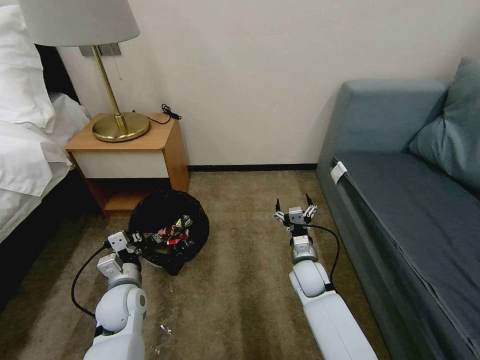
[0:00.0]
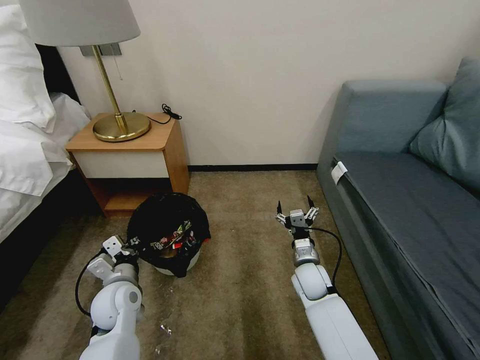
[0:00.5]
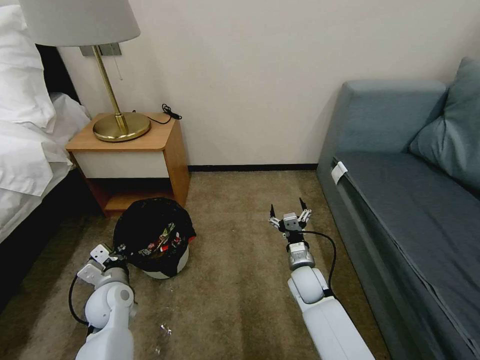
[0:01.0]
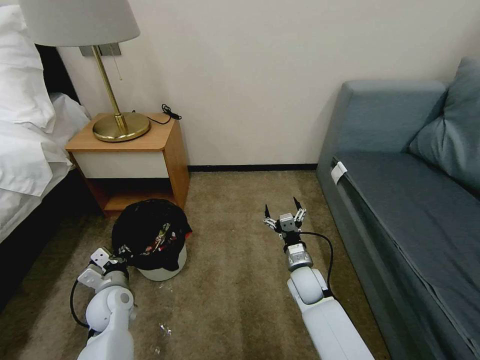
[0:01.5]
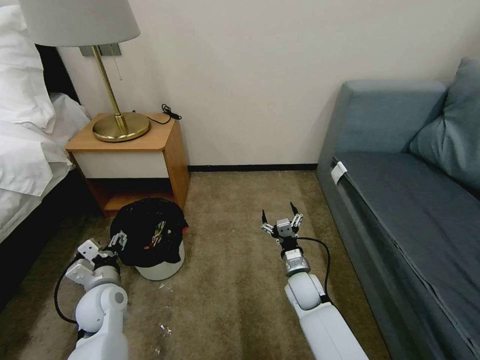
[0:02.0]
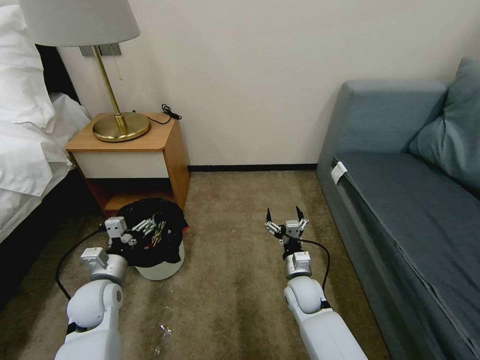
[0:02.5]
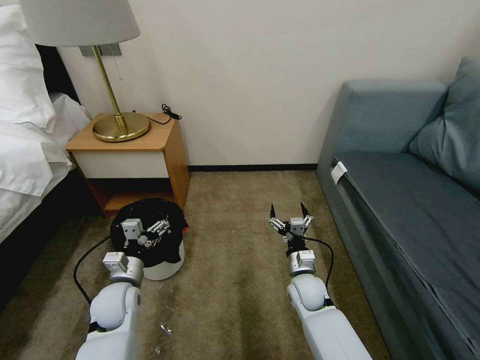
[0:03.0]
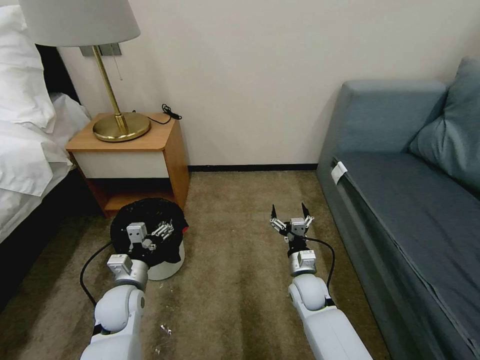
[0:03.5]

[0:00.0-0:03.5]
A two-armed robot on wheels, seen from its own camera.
Task of the whole recording: Pick up the trash bin, then pick up the garbage on the floor and place it into the trash bin.
0:00.0 to 0:02.0: The left gripper opens up.

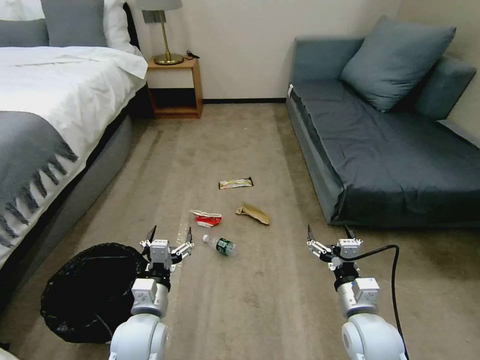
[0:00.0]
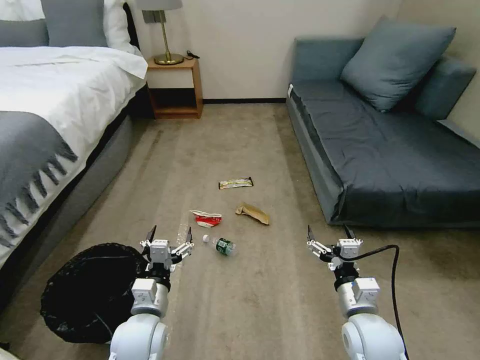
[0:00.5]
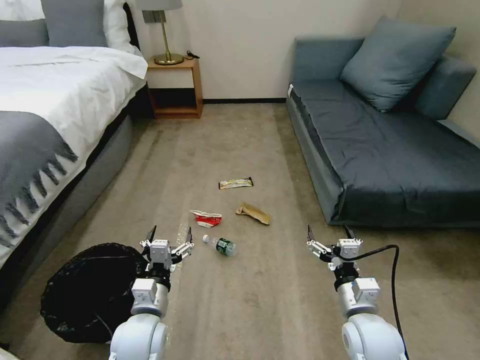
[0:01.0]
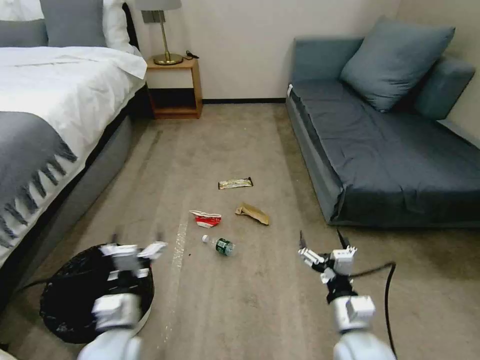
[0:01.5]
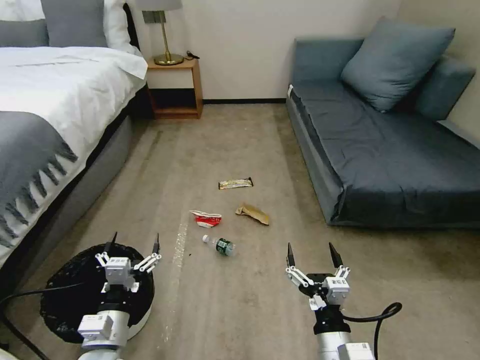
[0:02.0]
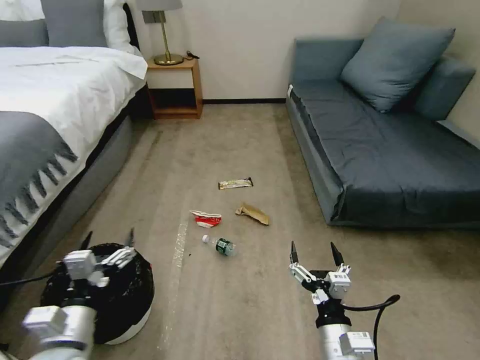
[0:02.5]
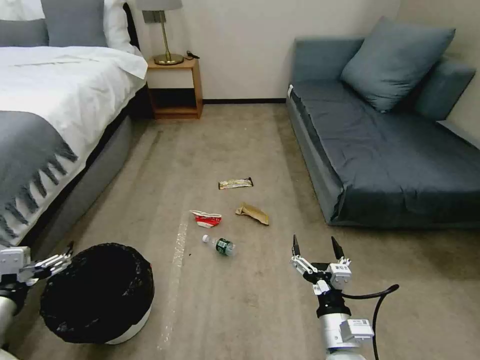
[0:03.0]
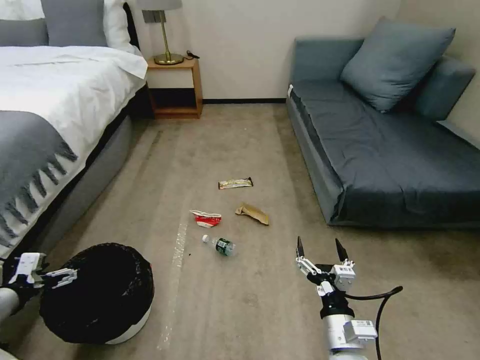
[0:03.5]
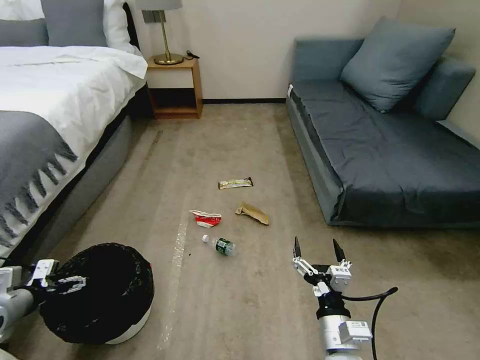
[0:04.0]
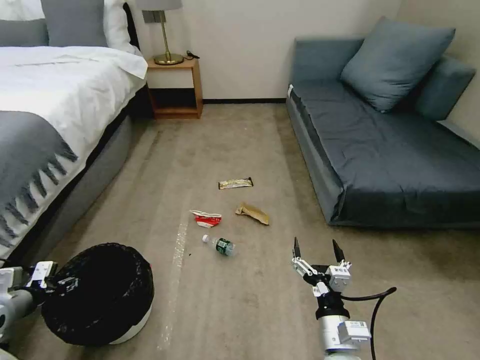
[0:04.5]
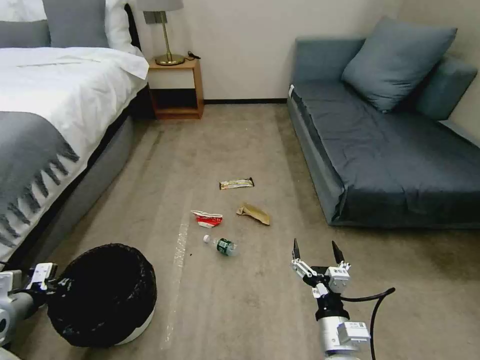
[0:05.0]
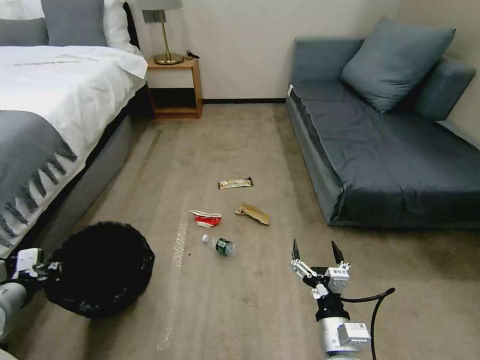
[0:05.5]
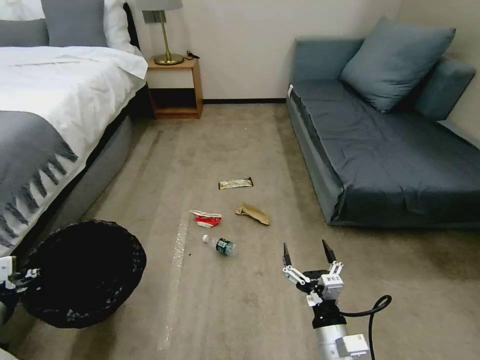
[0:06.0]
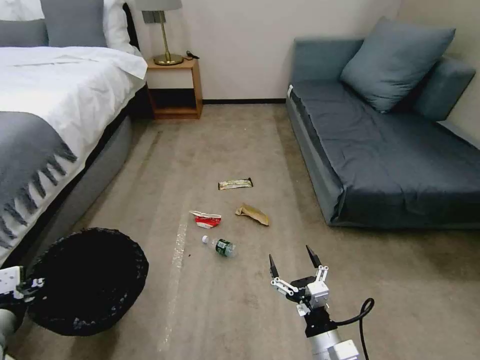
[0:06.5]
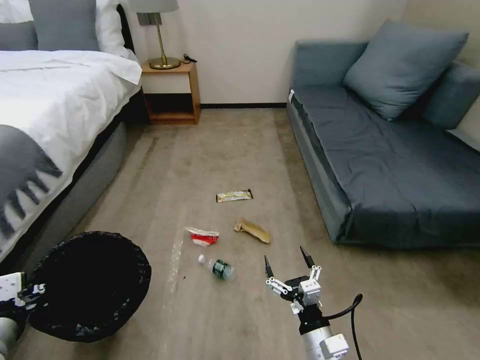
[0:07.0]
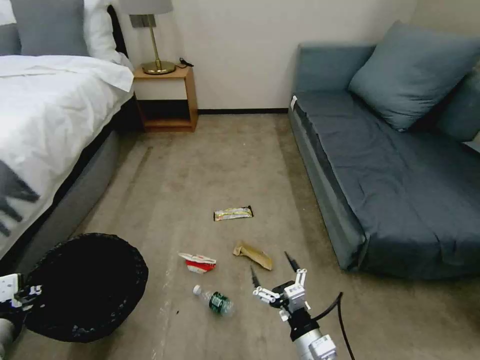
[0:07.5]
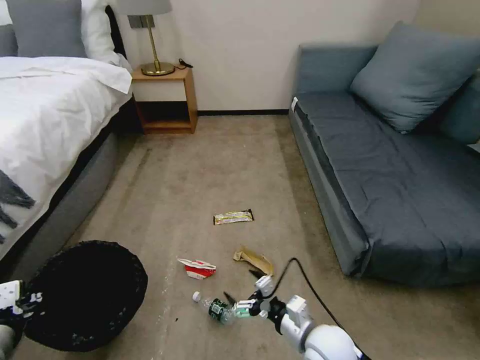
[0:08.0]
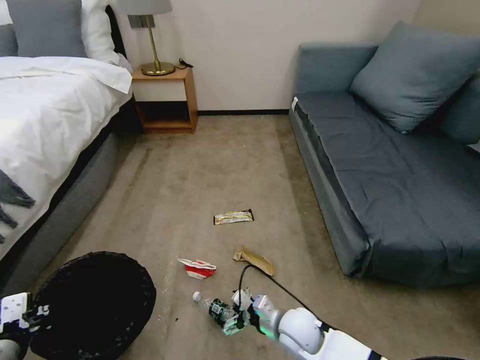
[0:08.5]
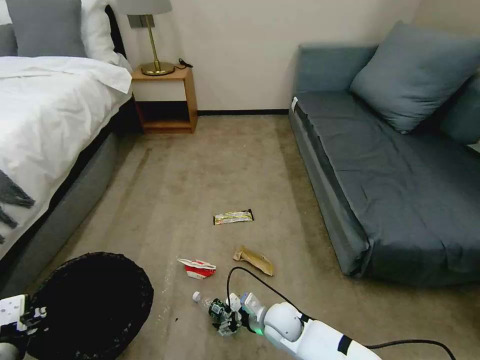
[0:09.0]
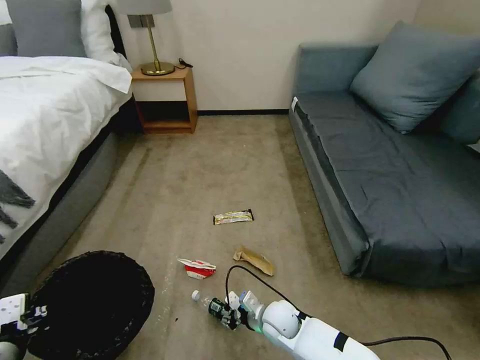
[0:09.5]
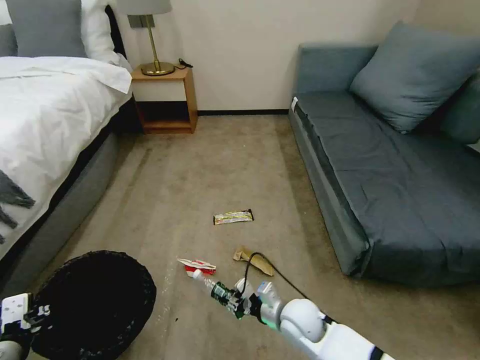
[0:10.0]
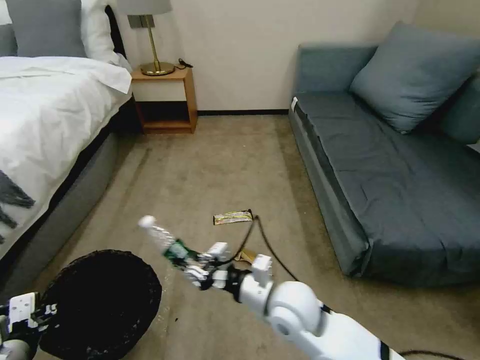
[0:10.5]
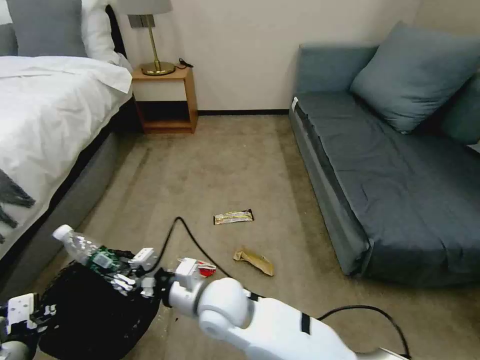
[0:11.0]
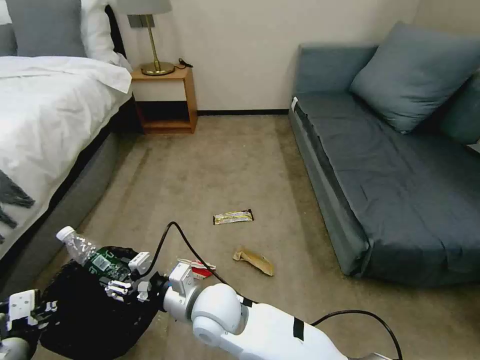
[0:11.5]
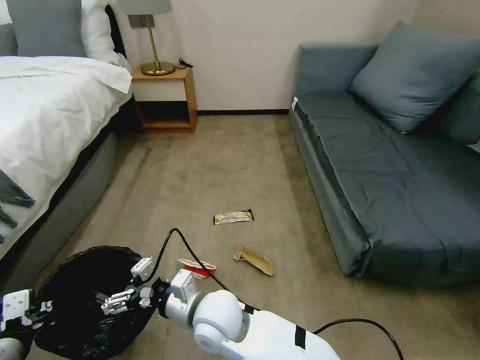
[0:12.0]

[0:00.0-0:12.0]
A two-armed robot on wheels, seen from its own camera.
Task of the whole recording: Pick up the trash bin, then pick up the garbage on the floor and place it into the trash bin.
0:02.0 to 0:04.0: The left gripper moves to the left, approximately 25 cm.
0:04.0 to 0:06.0: The left gripper heads upward, to the right and backward, covering approximately 15 cm, and closes up.
0:06.0 to 0:08.0: The right gripper heads forward, covering approximately 5 cm.
0:08.0 to 0:10.0: The right gripper moves forward and downward, approximately 10 cm, and closes its fingers.
0:10.0 to 0:12.0: The right gripper moves to the left and upward, roughly 25 cm, and opens its fingers.

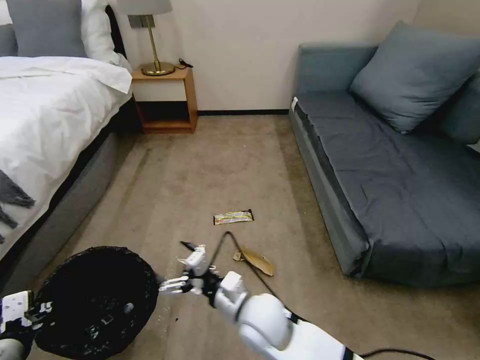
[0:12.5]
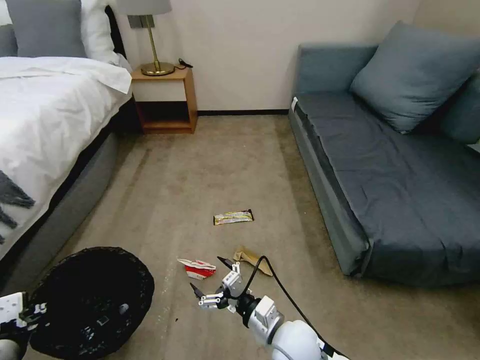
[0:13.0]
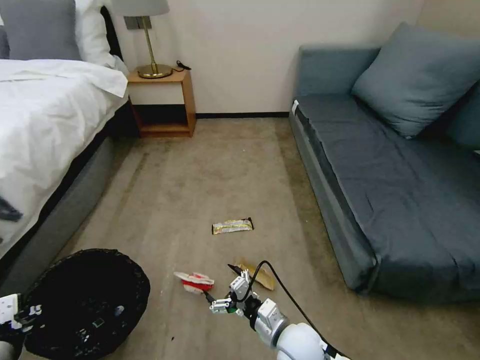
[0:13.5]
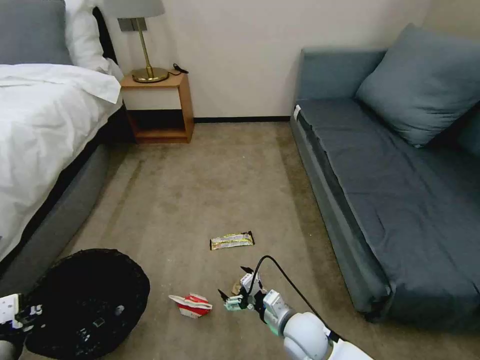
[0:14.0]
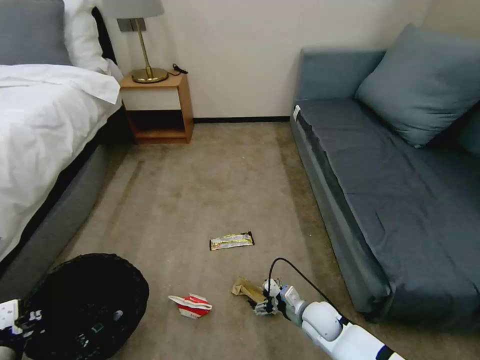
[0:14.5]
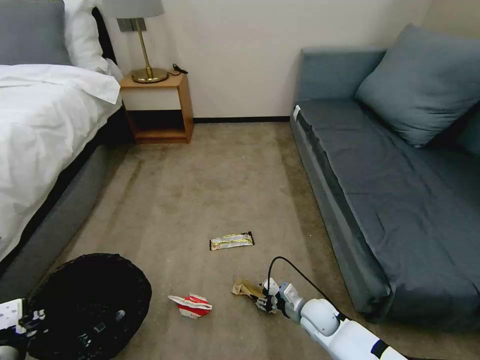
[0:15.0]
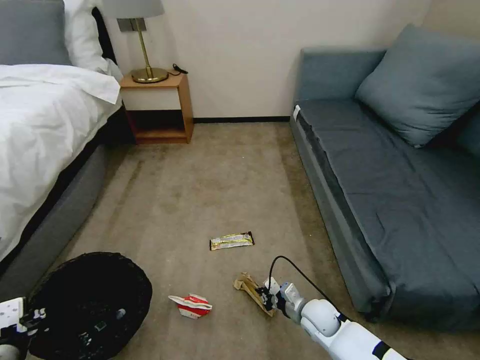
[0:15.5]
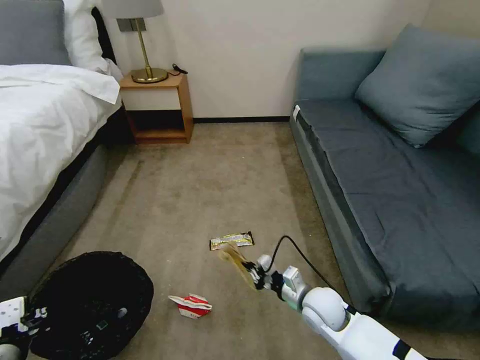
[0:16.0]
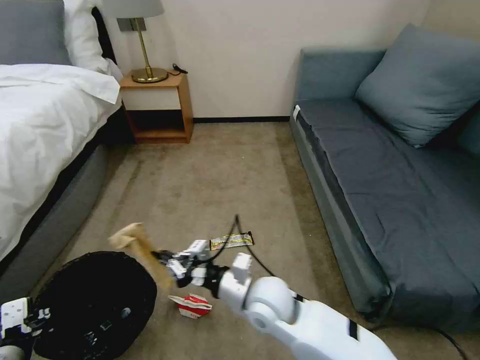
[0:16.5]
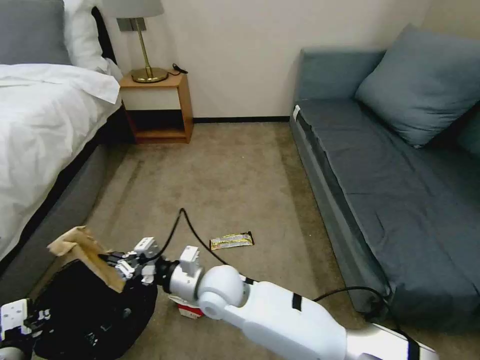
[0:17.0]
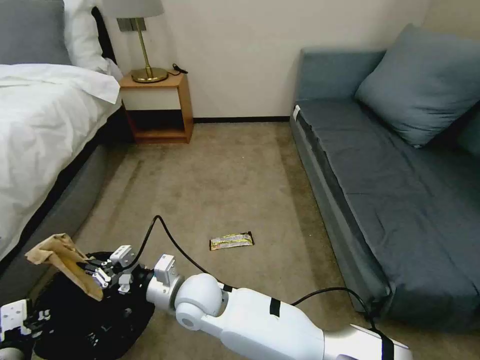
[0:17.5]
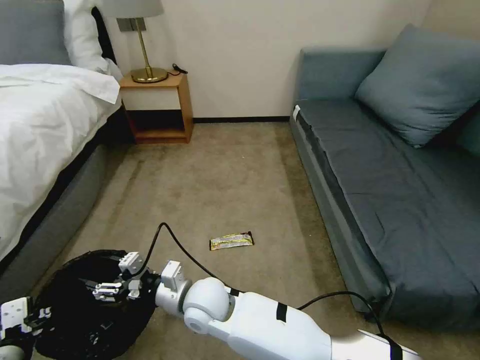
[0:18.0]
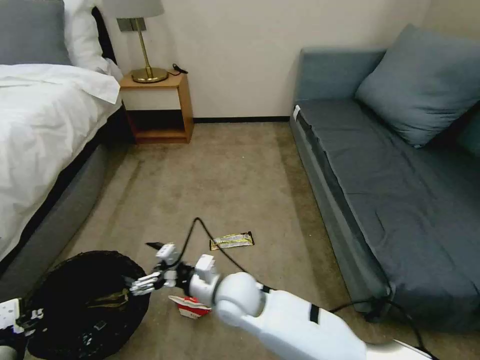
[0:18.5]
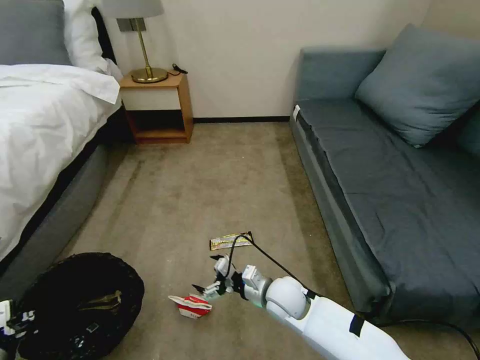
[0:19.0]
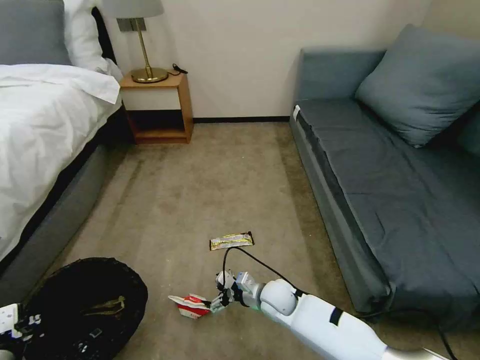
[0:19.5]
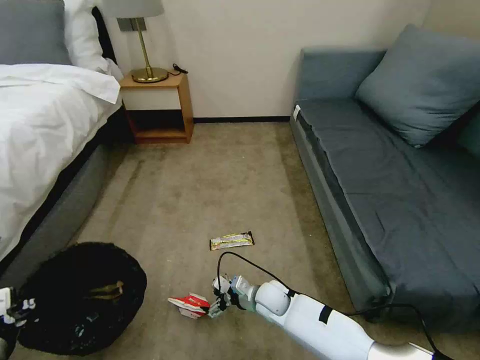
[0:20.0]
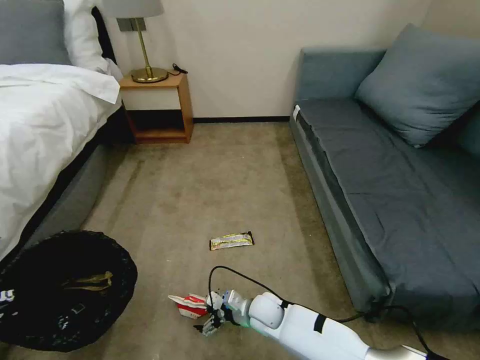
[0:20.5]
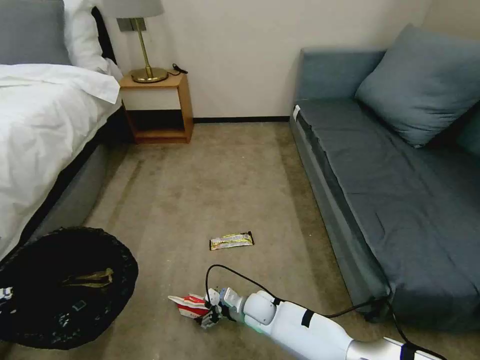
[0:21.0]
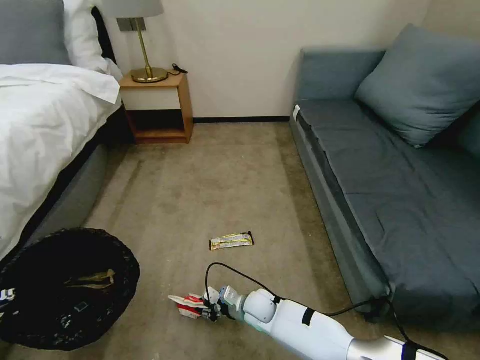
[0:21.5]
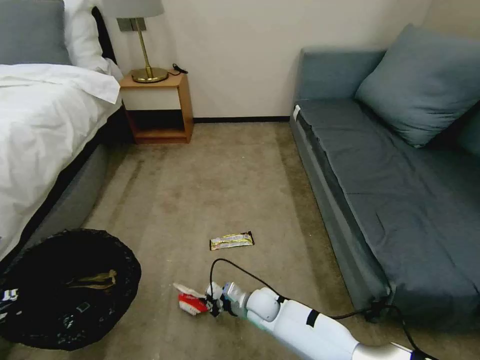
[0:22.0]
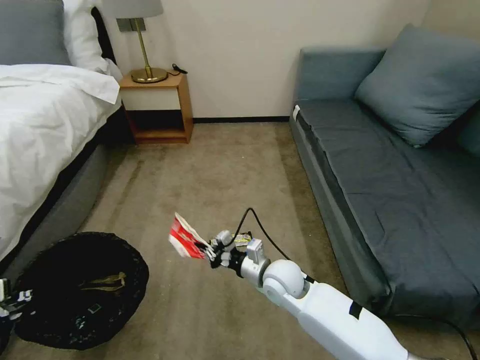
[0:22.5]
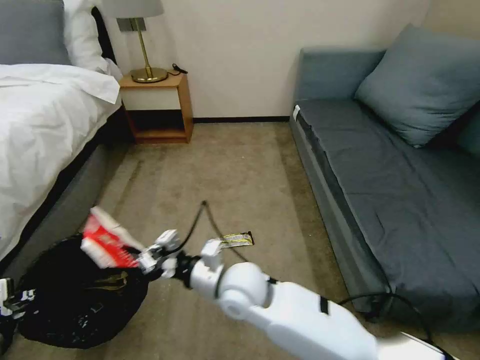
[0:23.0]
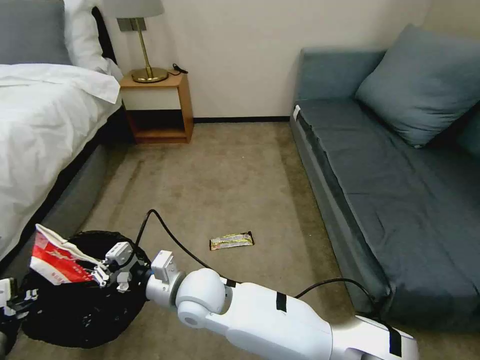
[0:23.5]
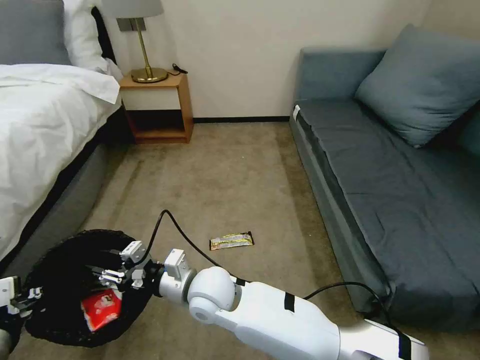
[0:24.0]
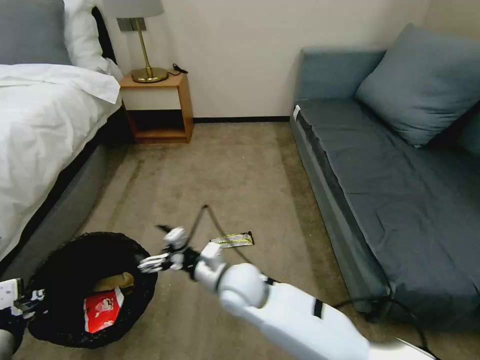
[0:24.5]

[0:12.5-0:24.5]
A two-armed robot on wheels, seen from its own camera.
Task of the whole recording: Pick up the trash bin, then pick up the garbage on the floor and place it into the trash bin.
0:12.5 to 0:14.5: The right gripper travels to the right and downward by about 25 cm.
0:14.5 to 0:16.5: The right gripper is displaced upward and to the left by some 25 cm, and closes up.
0:16.5 to 0:18.5: The right gripper shifts approximately 5 cm to the left, and opens.
0:18.5 to 0:20.5: The right gripper goes approximately 20 cm downward and to the right. Meanwhile the left gripper heads upward, covering approximately 10 cm.
0:20.5 to 0:22.5: The right gripper moves upward, some 15 cm, and closes up.
0:22.5 to 0:24.5: The right gripper goes approximately 10 cm to the left and upward, and opens its fingers.
